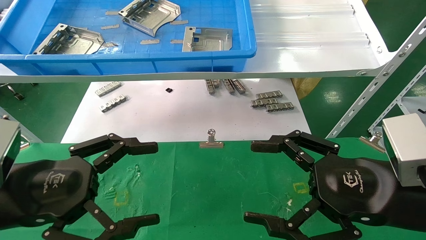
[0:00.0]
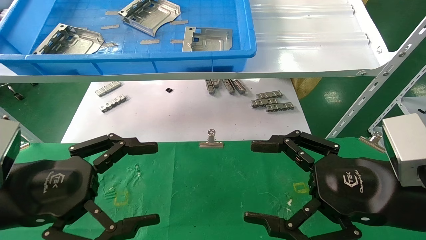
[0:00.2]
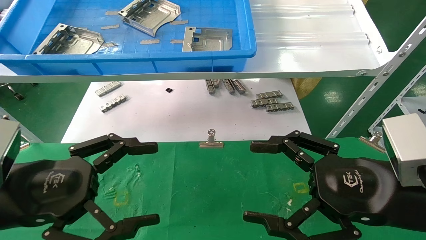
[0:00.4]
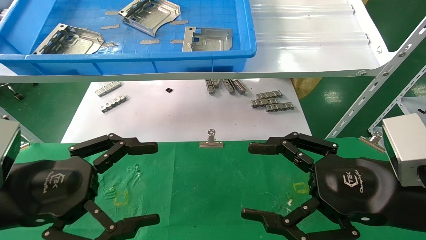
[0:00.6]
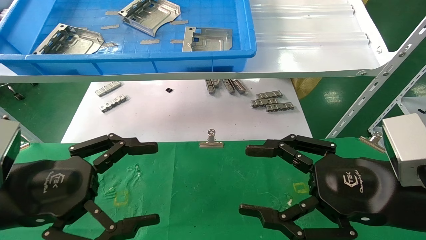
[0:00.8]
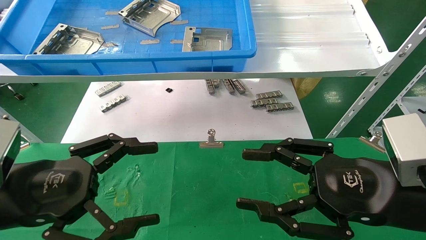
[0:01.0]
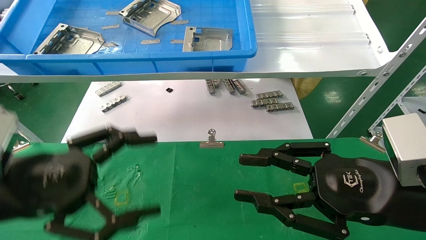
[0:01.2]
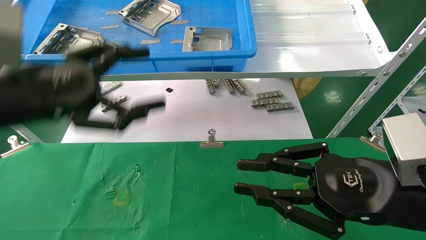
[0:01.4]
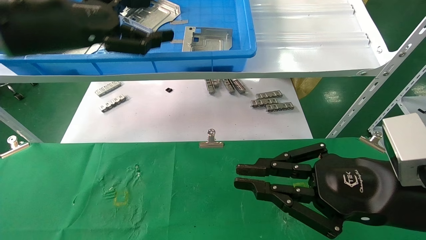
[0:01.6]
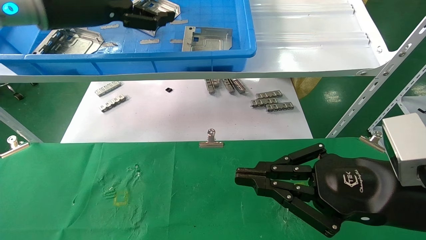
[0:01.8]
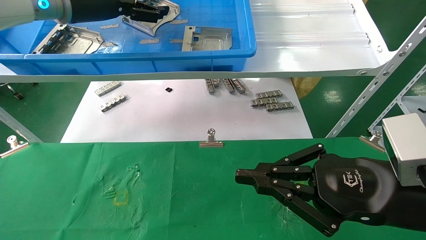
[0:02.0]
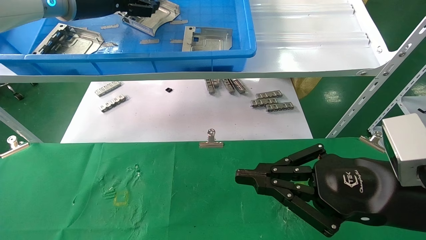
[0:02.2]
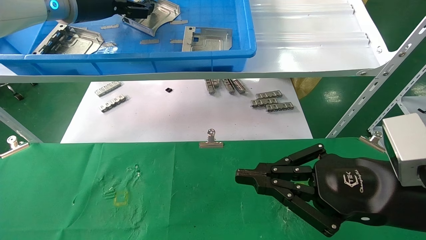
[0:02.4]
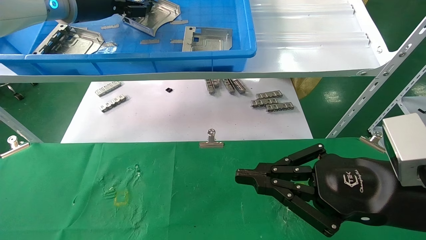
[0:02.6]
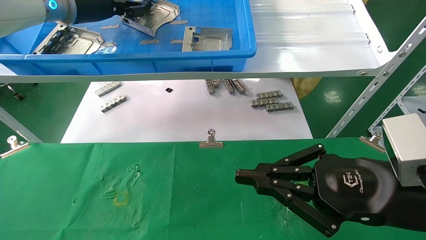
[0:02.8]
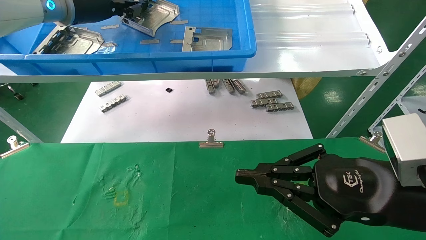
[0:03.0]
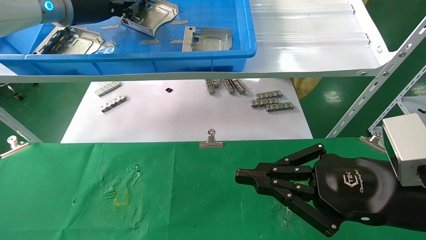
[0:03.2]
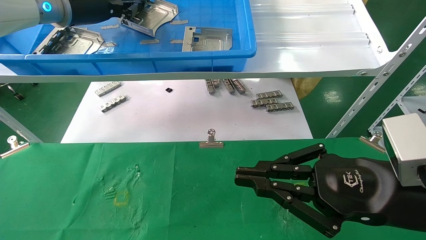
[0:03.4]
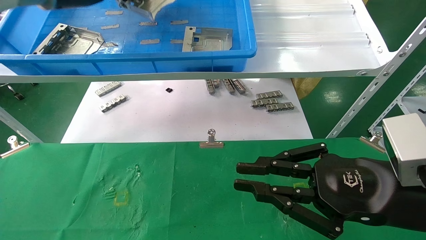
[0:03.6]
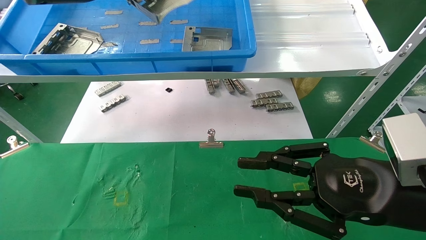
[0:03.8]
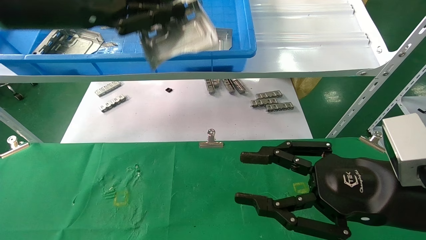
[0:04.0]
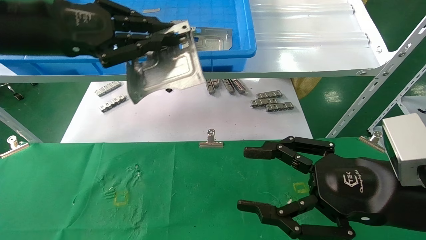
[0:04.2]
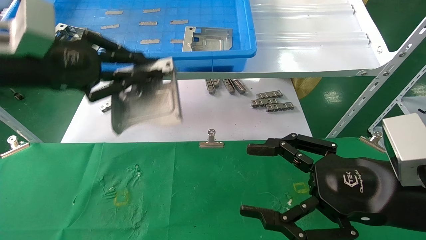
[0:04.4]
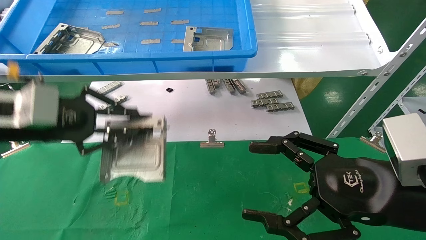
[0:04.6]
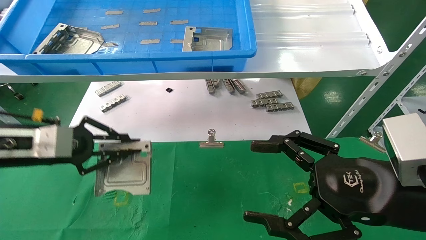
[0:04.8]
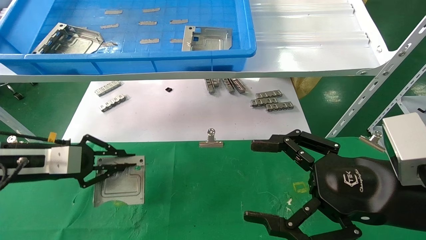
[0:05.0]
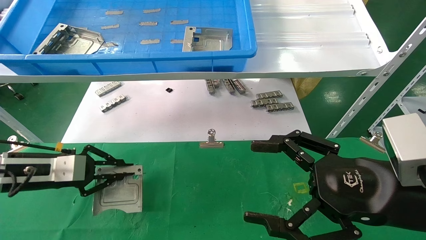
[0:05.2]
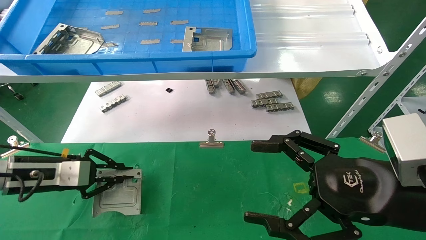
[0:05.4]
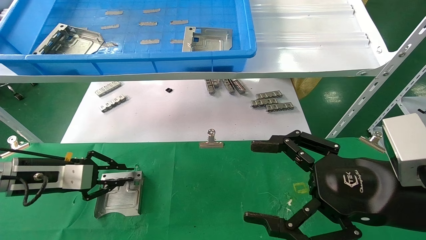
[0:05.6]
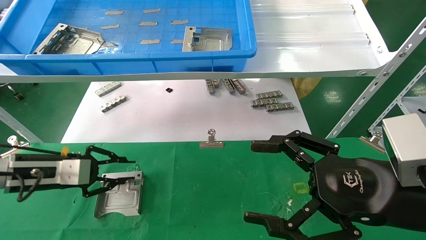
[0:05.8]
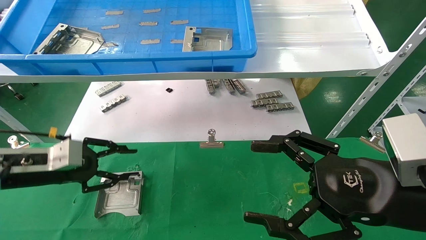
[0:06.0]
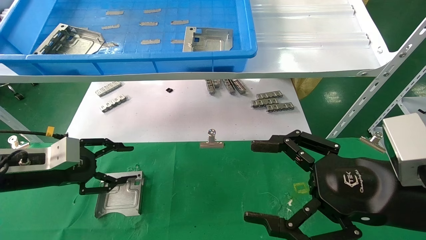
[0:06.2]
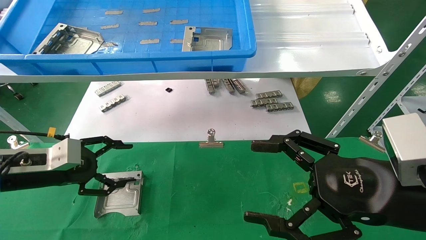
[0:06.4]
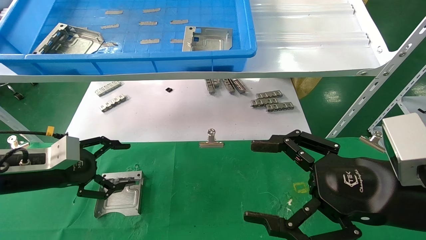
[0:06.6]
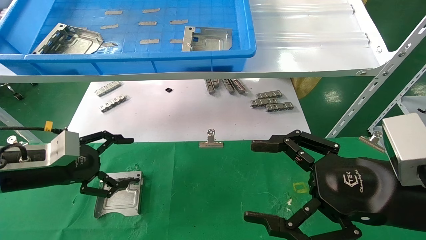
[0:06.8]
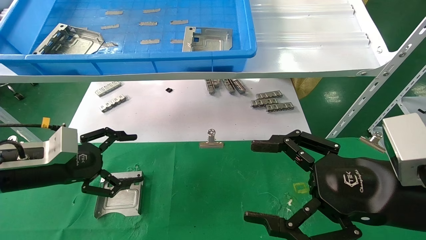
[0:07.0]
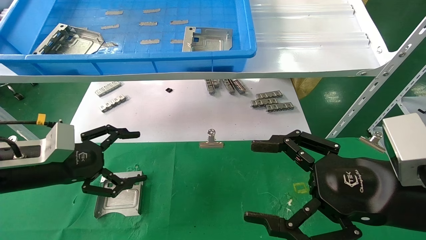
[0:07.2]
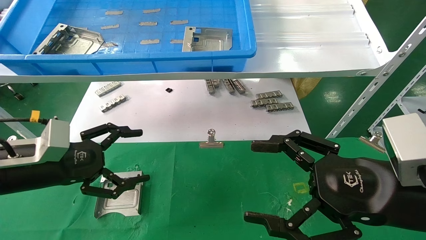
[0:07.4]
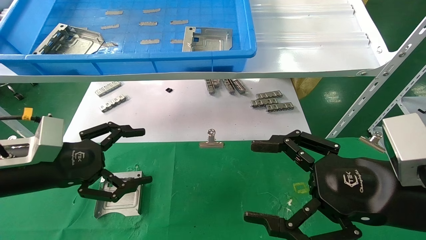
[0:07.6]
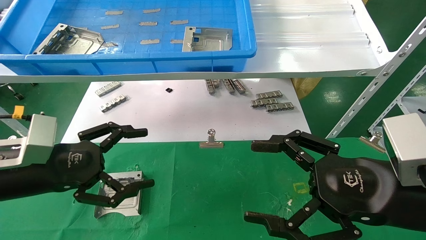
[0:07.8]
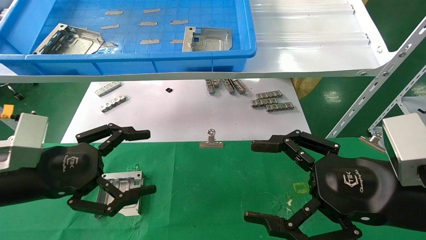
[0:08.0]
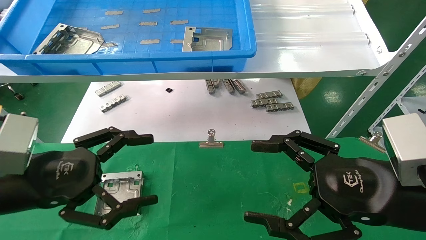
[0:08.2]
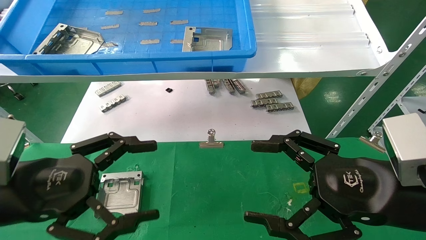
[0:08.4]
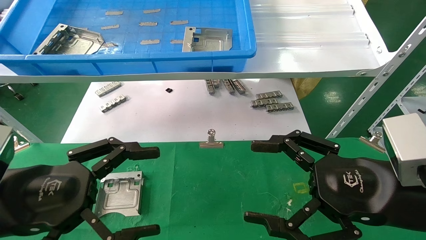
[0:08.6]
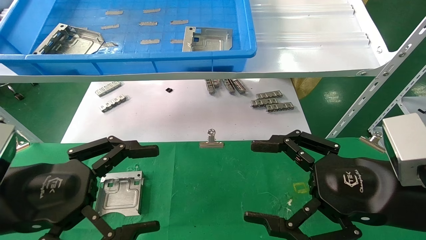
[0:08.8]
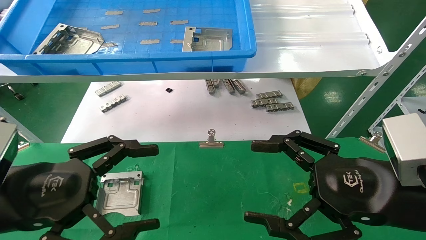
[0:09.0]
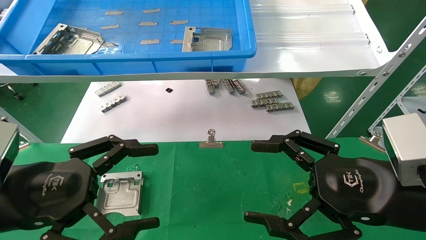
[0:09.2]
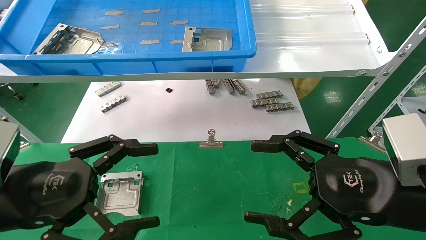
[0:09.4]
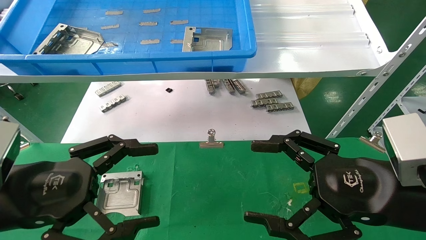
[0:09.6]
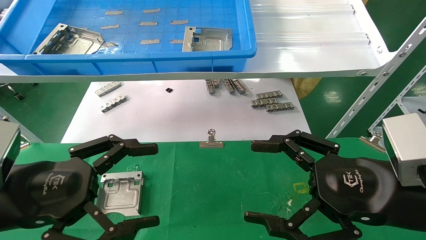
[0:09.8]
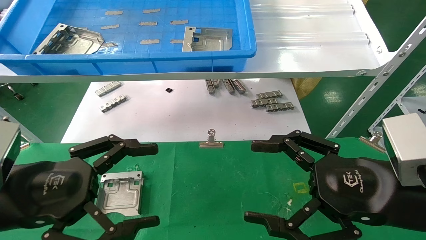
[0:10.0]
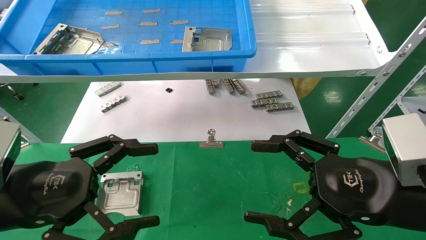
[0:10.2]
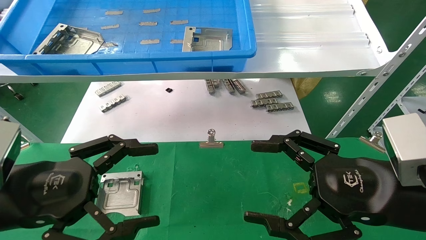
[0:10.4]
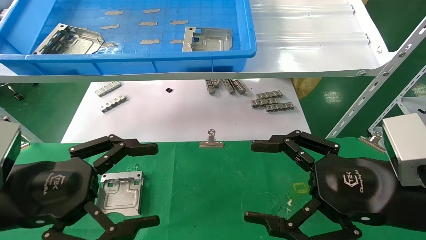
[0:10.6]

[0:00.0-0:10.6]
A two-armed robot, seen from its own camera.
Task of the whole recording: use the mechanical arm to pick up the parts and place them on the table.
Step, 0:01.6 to 0:03.4: Pick up the hard drive bracket from the feeding area.
Step, 0:03.6 to 0:05.8: Place the hard drive bracket into the box.
0:00.0 to 0:01.6: The left gripper goes roughly 20 cm upward and forward; the right gripper closes.
0:01.6 to 0:03.0: The left gripper is displaced forward by roughly 10 cm, and closes its fingers.
0:03.0 to 0:04.6: The right gripper opens its fingers, while the left gripper goes approximately 20 cm downward, backward and to the left, and closes.
0:04.6 to 0:06.0: The left gripper shifts some 15 cm downward.
0:06.0 to 0:07.6: The left gripper heads backward, covering some 5 cm, and opens up.
0:07.6 to 0:09.0: The left gripper is displaced backward by about 10 cm.
0:09.0 to 0:10.6: Both grippers stay put.

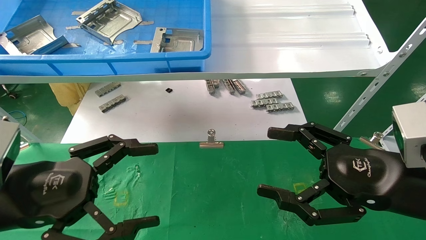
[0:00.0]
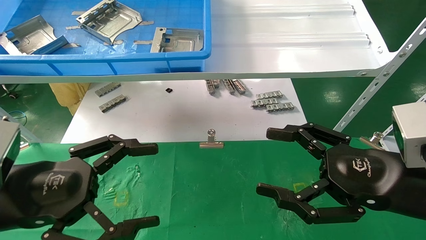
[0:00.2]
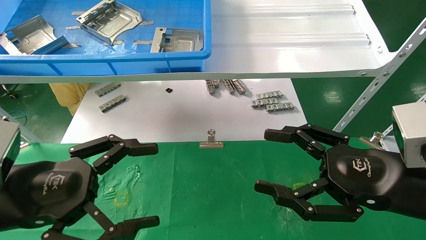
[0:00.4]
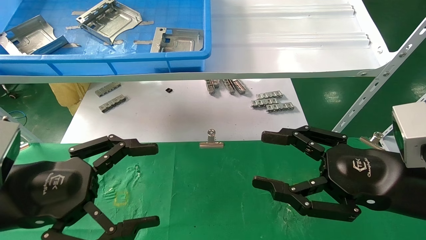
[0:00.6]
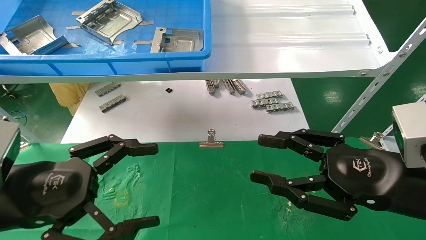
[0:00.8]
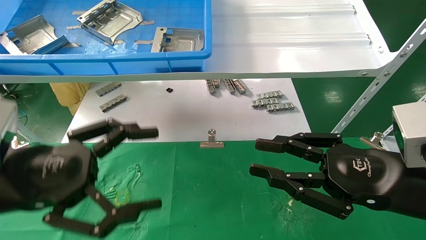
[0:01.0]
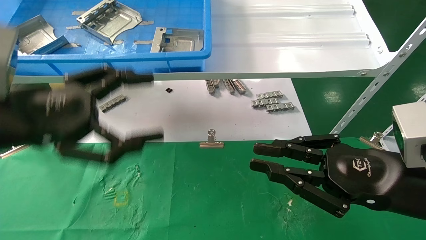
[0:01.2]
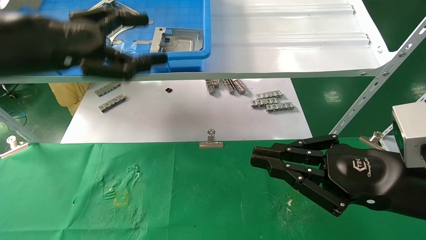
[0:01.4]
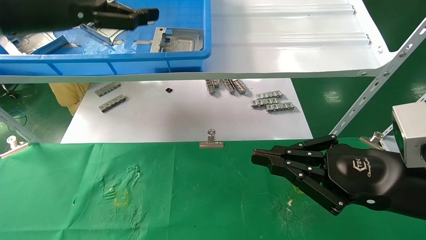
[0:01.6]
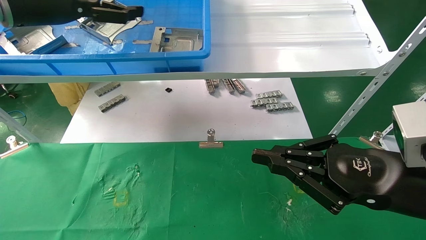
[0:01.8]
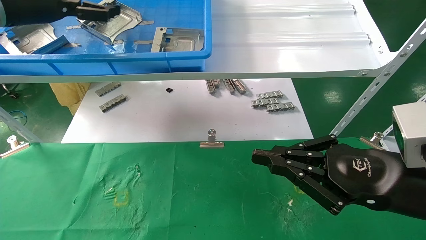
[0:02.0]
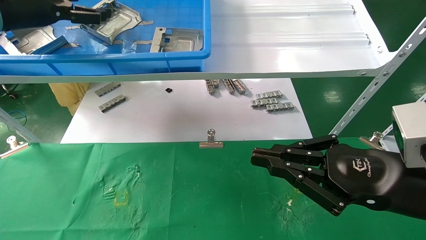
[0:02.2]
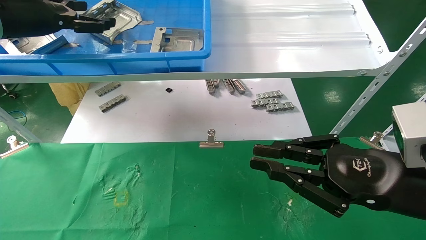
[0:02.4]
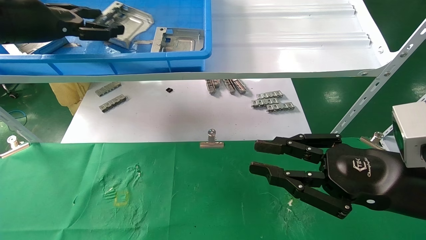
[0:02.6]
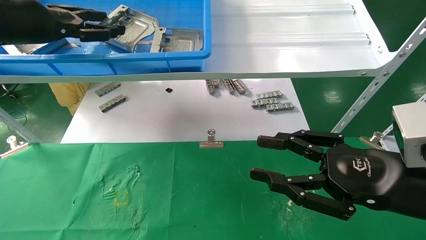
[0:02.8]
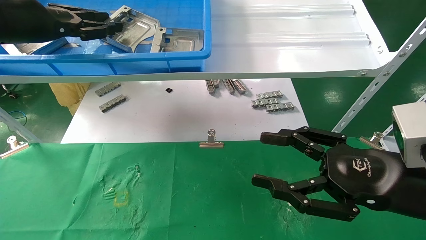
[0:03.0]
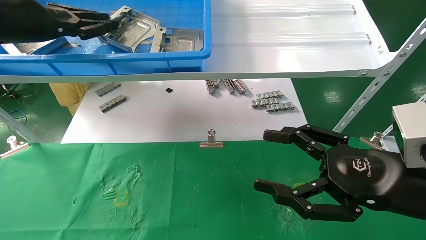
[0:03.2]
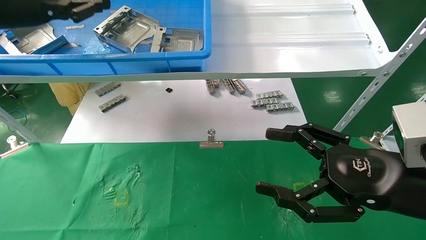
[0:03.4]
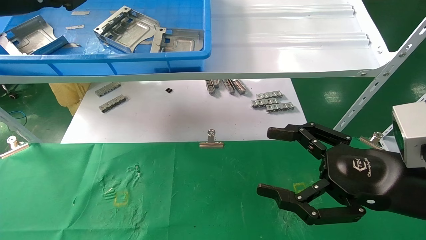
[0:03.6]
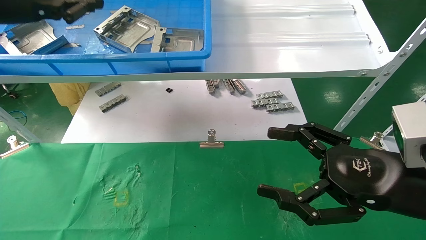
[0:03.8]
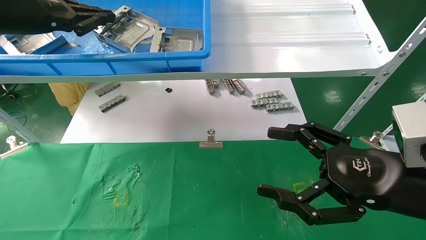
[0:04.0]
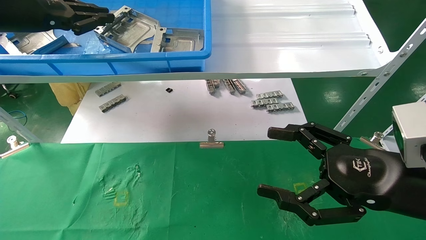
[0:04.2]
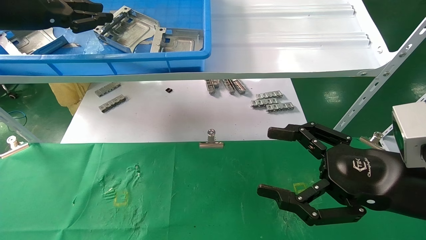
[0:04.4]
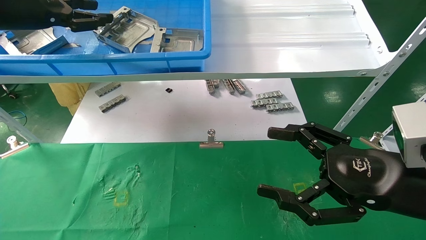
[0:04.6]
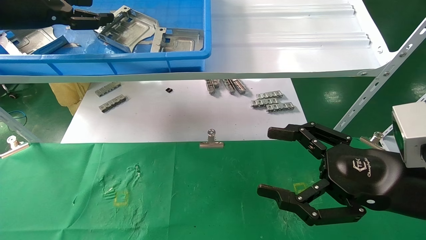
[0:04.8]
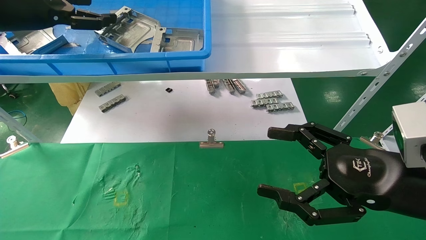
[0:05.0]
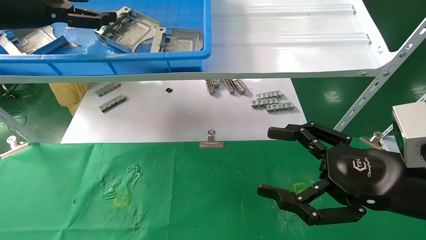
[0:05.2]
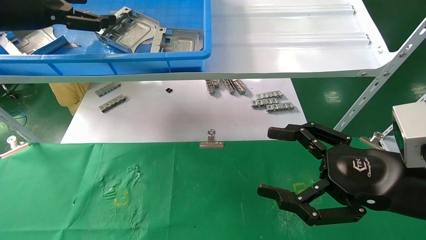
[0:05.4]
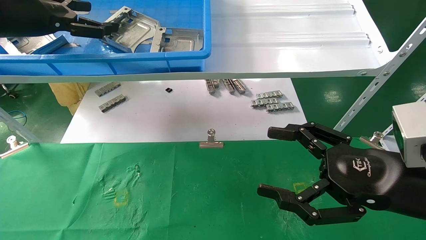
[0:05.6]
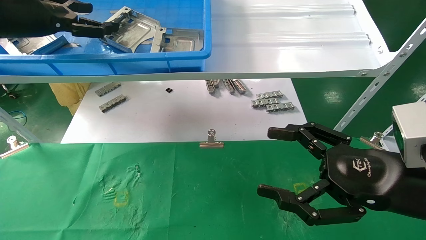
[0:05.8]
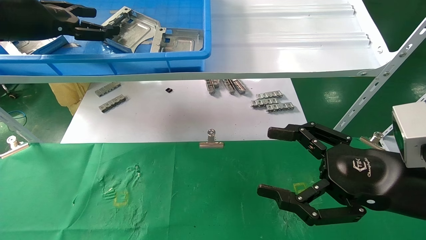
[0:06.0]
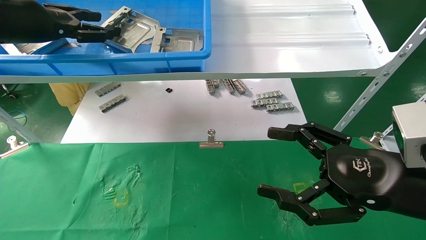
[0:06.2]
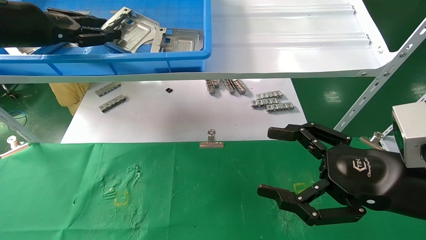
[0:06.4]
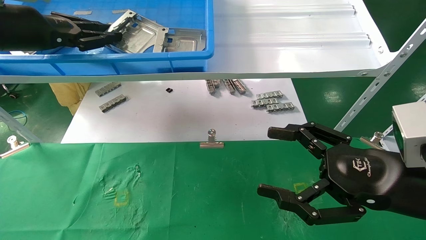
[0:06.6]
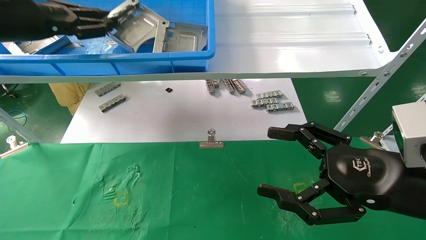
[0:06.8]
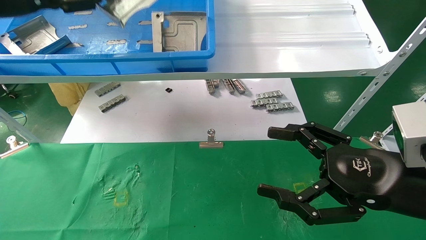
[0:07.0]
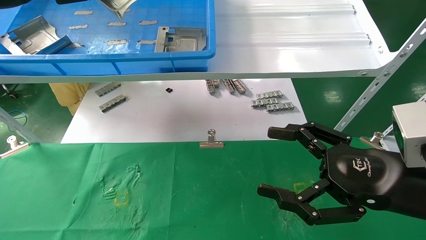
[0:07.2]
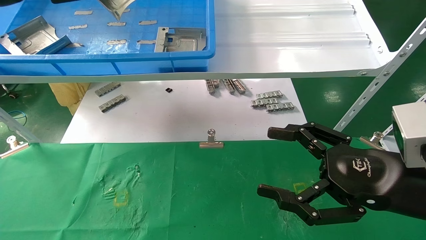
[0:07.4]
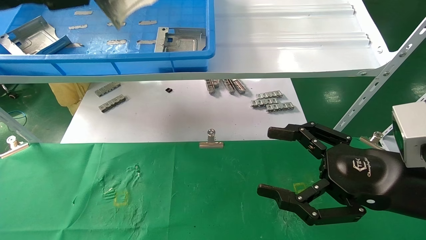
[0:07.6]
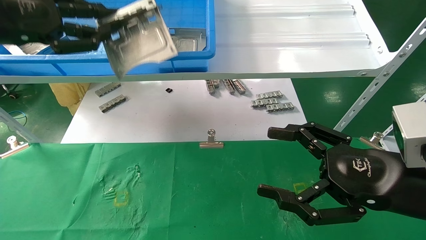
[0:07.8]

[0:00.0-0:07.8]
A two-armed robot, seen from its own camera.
Task of the whole recording: use the mechanical arm to pick up the parts and place them on the table.
Step, 0:01.4 to 0:06.8: Pick up the hard drive bracket from the feeding area.
0:00.0 to 0:01.6: The left gripper shifts approximately 25 cm upward and forward. Meanwhile the right gripper closes up.
0:01.6 to 0:03.2: The right gripper opens up. Meanwhile the left gripper travels to the left by roughly 5 cm, and closes its fingers.
0:03.2 to 0:04.6: The grippers move only a little.
0:04.6 to 0:06.2: The left gripper opens.
0:06.2 to 0:07.8: The left gripper is displaced backward by approximately 10 cm, and closes up.
